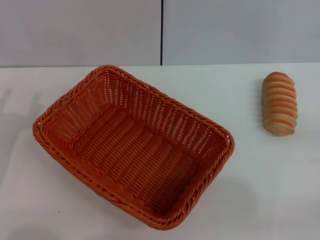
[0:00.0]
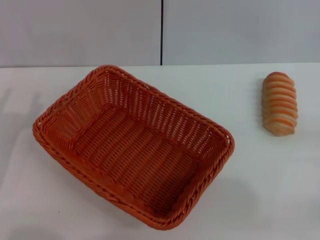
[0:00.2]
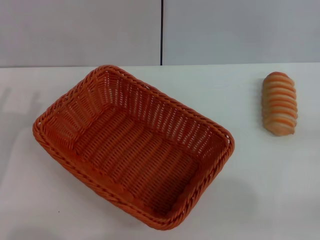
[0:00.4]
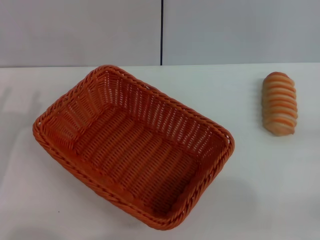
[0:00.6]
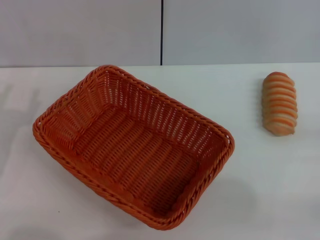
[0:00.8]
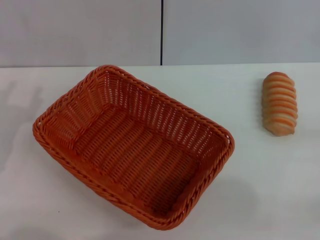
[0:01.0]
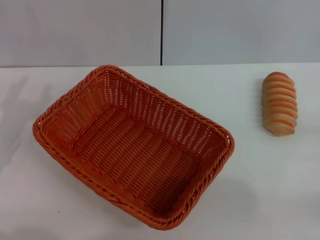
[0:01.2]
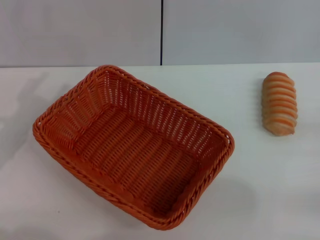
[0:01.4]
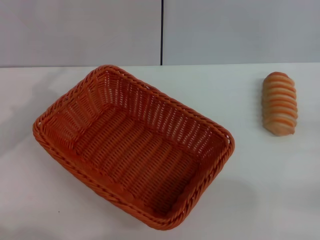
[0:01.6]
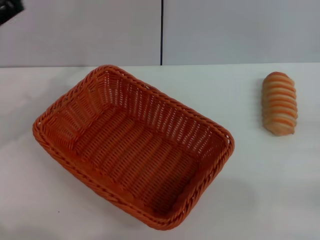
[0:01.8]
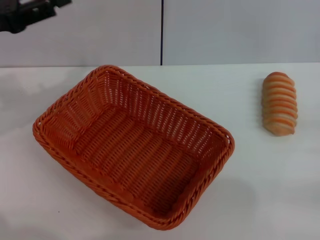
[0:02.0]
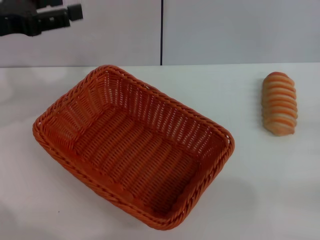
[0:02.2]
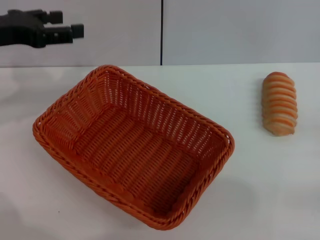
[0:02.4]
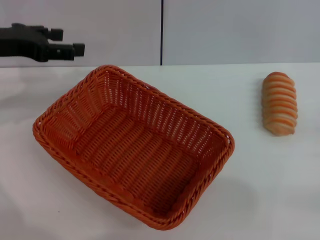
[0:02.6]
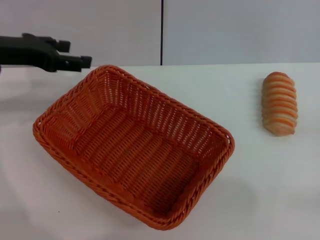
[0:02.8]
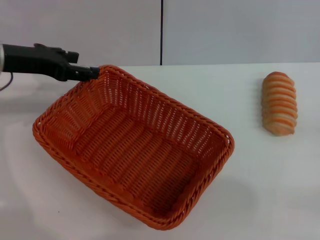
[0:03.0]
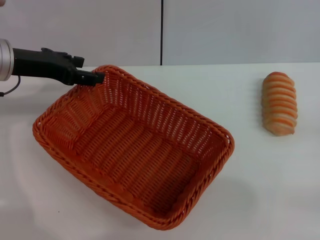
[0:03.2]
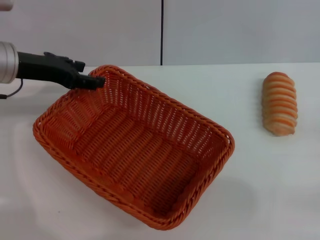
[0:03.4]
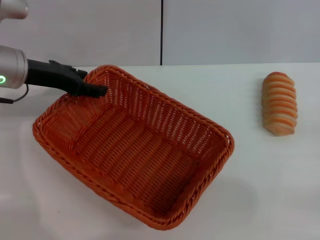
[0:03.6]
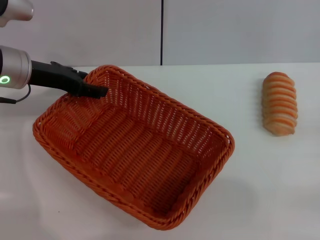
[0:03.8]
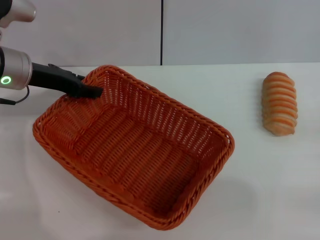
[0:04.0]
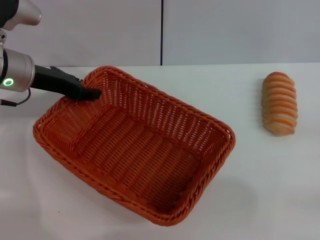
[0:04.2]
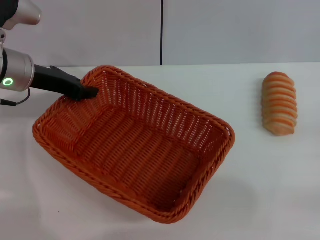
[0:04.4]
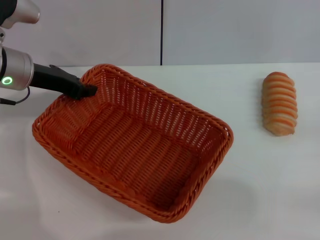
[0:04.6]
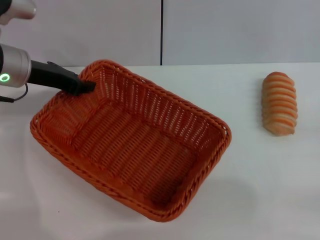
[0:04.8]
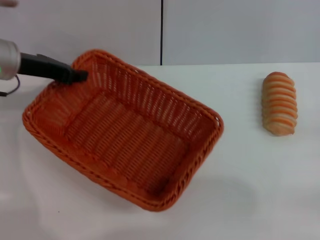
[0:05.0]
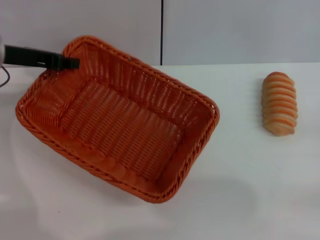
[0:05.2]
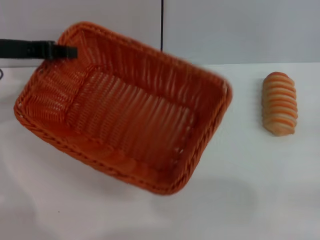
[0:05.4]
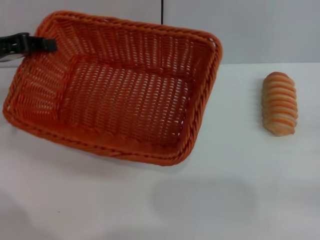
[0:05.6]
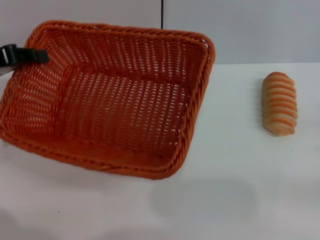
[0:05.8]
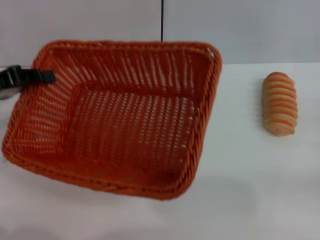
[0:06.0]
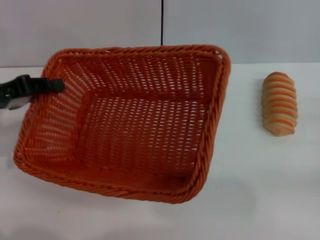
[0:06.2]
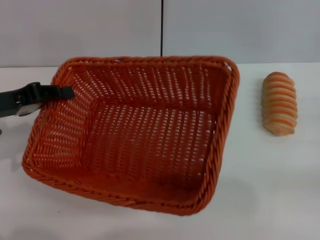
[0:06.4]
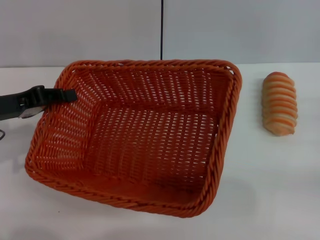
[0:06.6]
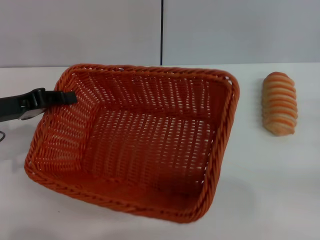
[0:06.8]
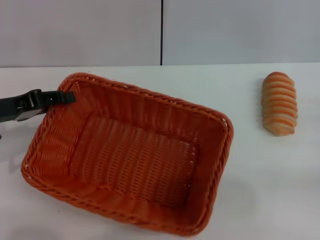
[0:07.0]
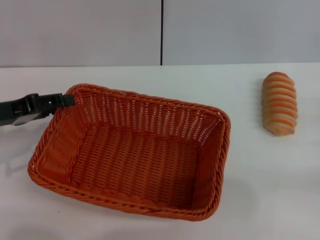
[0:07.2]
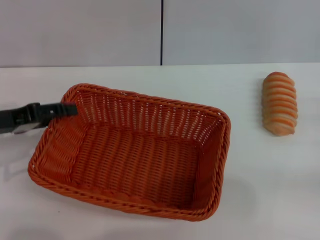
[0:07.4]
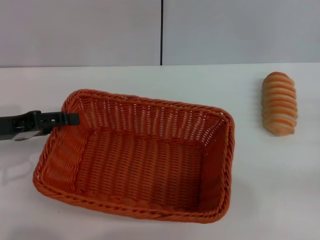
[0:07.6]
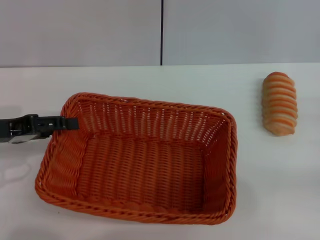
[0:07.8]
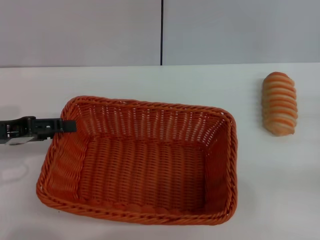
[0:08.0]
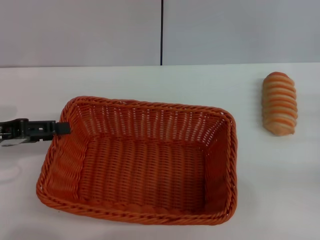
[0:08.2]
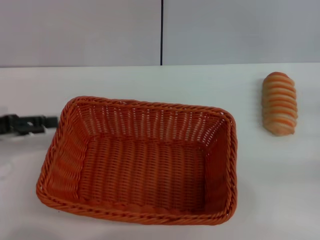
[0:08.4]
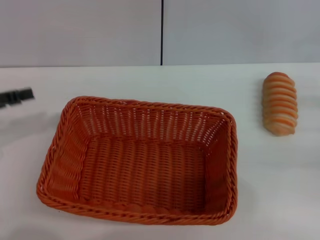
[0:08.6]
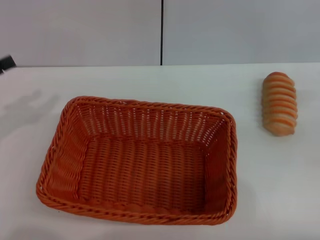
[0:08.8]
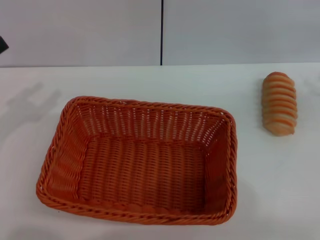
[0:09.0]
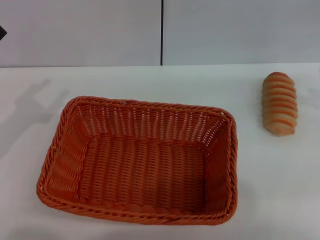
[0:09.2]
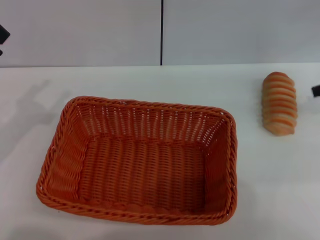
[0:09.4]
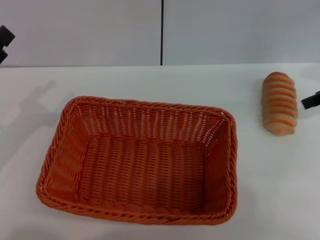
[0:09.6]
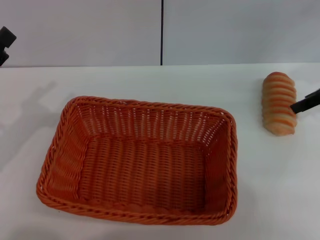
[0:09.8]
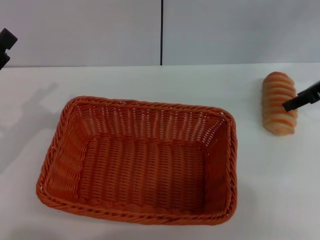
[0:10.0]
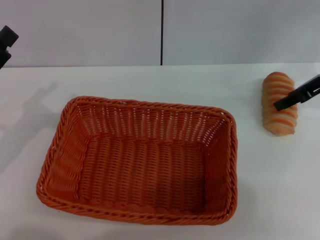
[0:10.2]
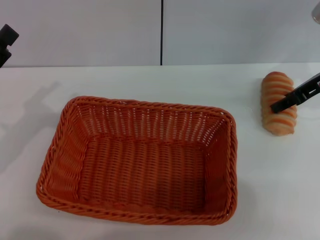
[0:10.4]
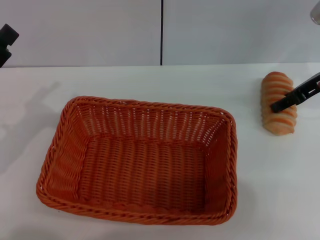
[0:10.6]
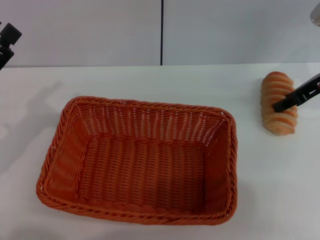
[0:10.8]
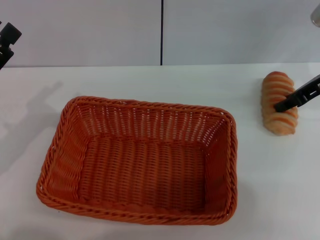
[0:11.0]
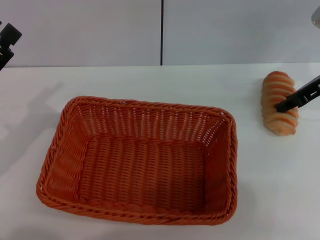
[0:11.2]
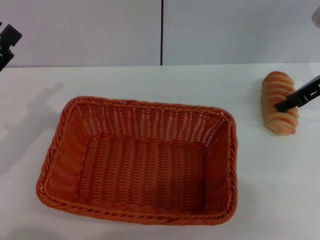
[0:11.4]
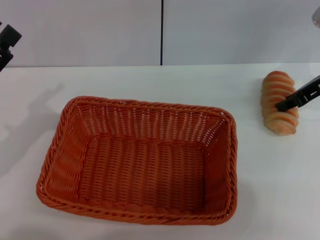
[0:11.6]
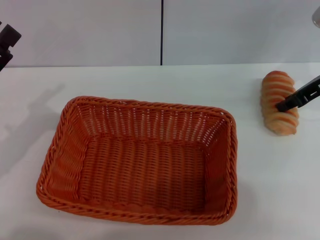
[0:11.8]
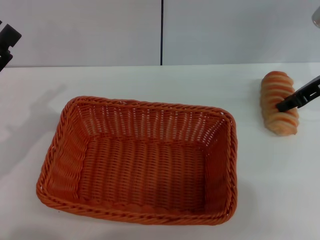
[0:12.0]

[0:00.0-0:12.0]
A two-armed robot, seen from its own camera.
Step, 0:00.0 to 0:05.6: Pick up the light basket with the left gripper.
Step, 0:05.8 to 0:08.4: Place the light basket in the center of view with the left gripper.
0:01.6 to 0:03.0: The left gripper heads forward and to the right, covering some 10 cm.
0:03.0 to 0:04.4: The left gripper closes.
0:04.4 to 0:06.0: The left gripper travels to the left and backward by approximately 10 cm, and closes up.
0:06.0 to 0:07.6: The left gripper ends up roughly 5 cm from where it was, and opens up.
0:07.6 to 0:09.0: The left gripper heads to the left, covering some 5 cm, while the right gripper is displaced upward and forward by roughly 15 cm.
0:09.0 to 0:10.4: The right gripper moves to the left and forward, approximately 15 cm.
0:10.4 to 0:12.0: The right gripper closes up.

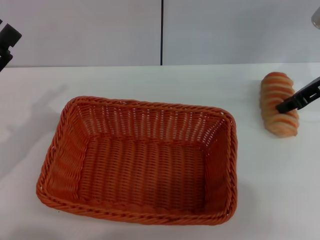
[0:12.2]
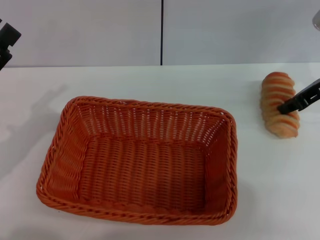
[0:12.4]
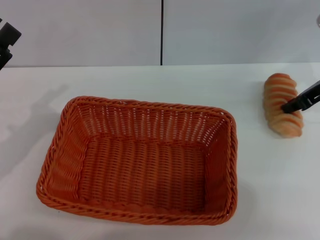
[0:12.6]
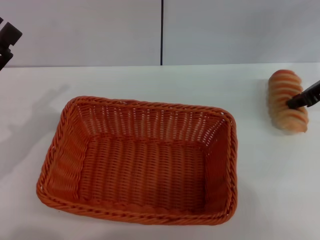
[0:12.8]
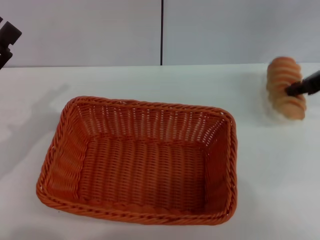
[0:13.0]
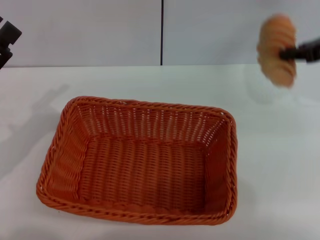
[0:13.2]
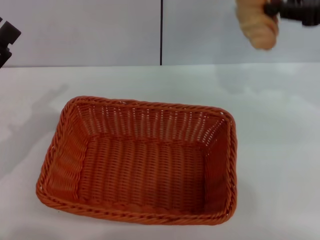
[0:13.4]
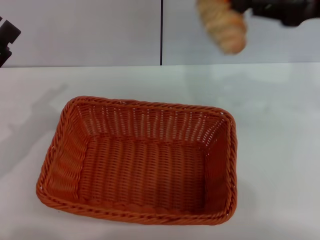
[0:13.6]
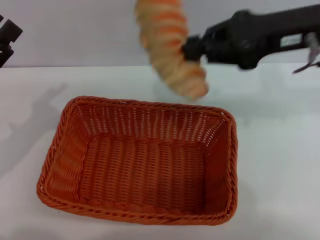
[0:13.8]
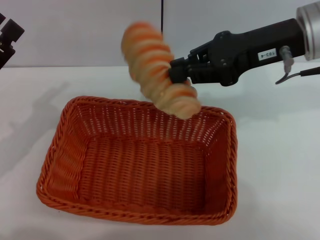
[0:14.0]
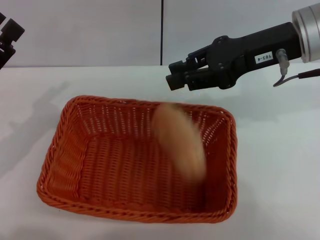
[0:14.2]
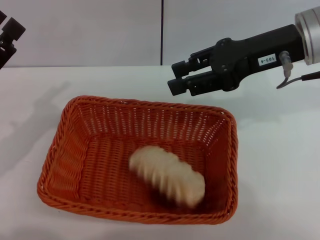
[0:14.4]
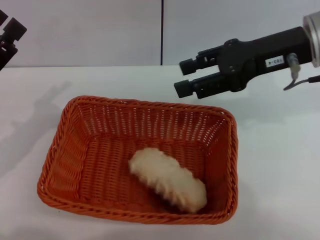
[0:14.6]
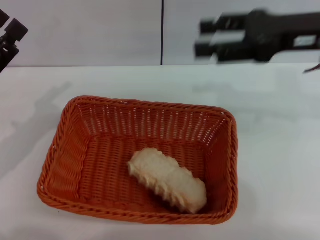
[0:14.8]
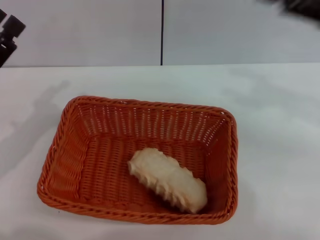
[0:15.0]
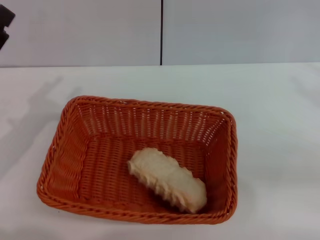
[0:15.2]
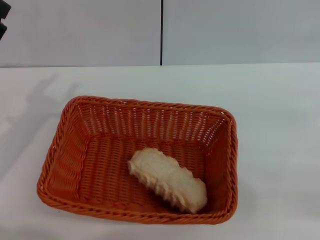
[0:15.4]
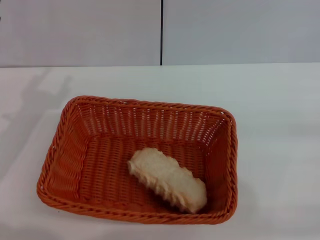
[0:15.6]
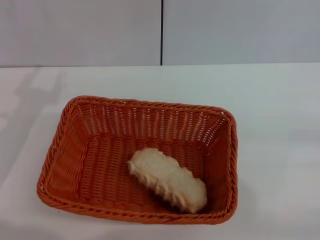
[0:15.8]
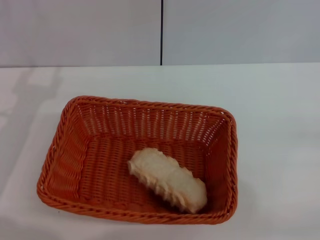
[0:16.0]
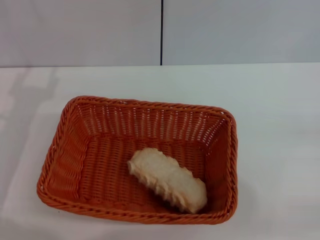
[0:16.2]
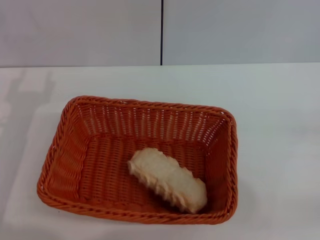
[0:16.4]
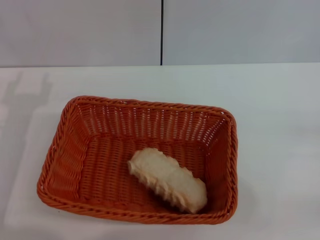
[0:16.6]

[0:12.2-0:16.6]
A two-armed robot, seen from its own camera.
Step, 0:13.4 to 0:14.8: Place the long bread into the light basket with the right gripper.
0:12.2 to 0:13.6: The right gripper travels upward and backward by about 10 cm.
0:13.6 to 0:15.2: The right gripper travels to the right, downward and backward by some 15 cm, and opens its fingers.
